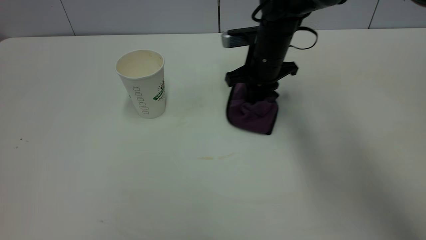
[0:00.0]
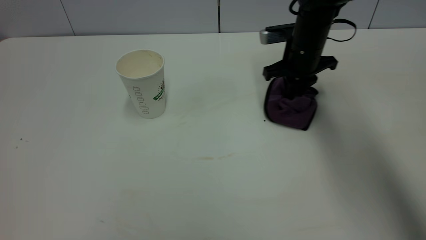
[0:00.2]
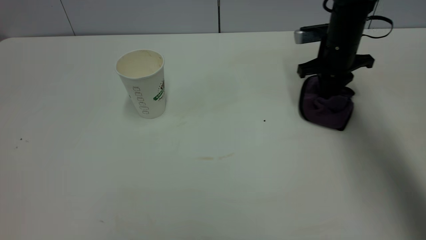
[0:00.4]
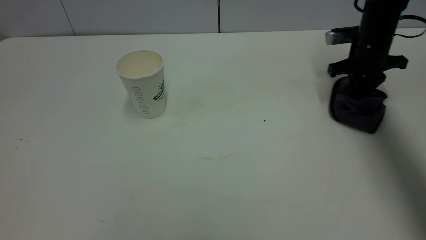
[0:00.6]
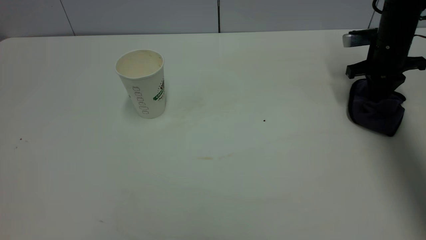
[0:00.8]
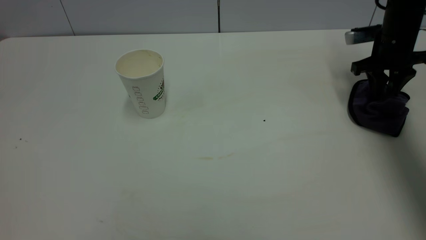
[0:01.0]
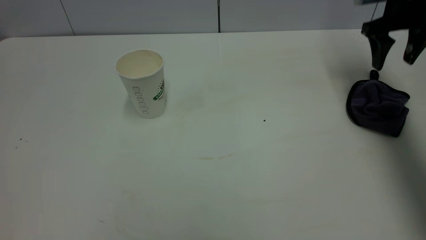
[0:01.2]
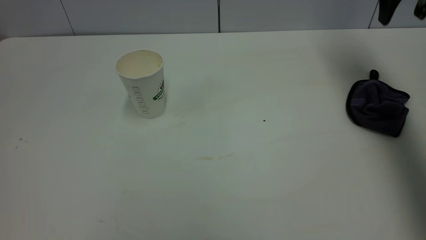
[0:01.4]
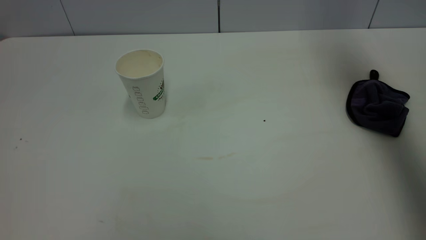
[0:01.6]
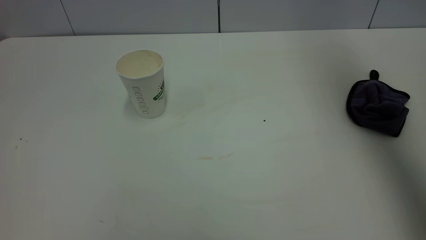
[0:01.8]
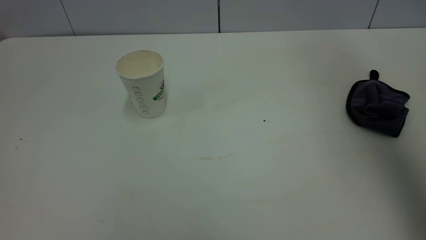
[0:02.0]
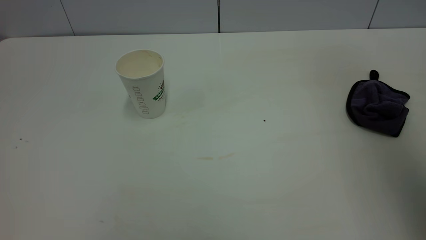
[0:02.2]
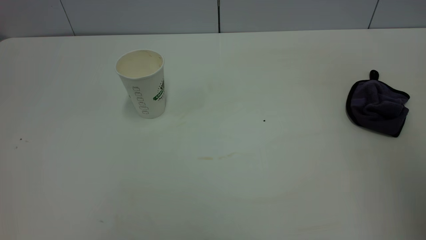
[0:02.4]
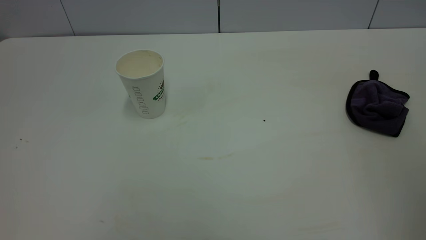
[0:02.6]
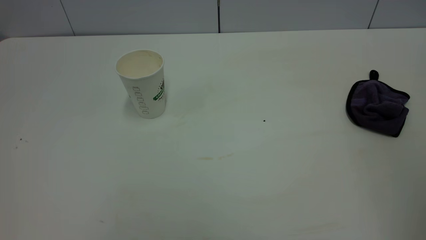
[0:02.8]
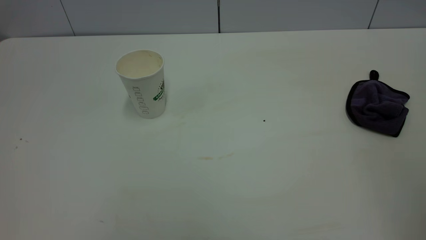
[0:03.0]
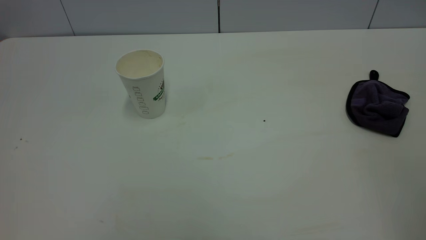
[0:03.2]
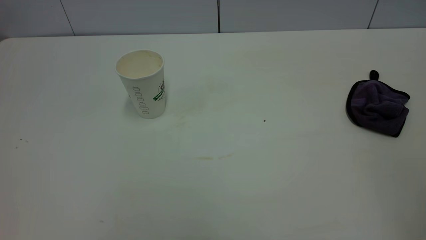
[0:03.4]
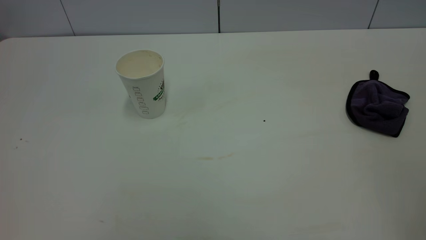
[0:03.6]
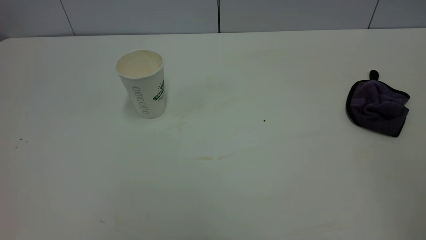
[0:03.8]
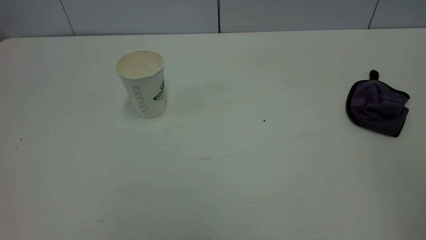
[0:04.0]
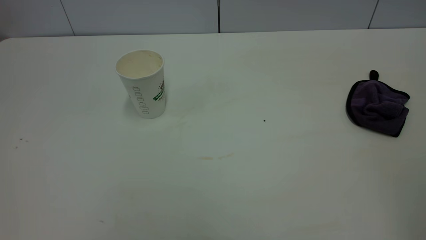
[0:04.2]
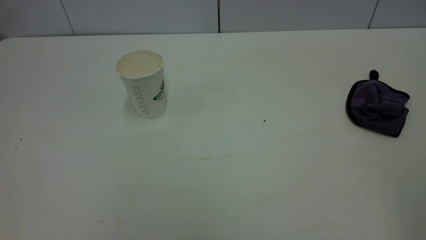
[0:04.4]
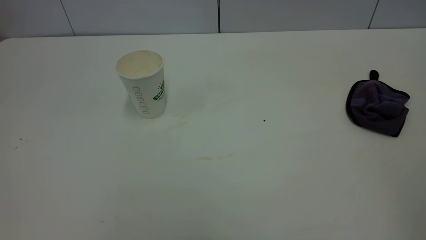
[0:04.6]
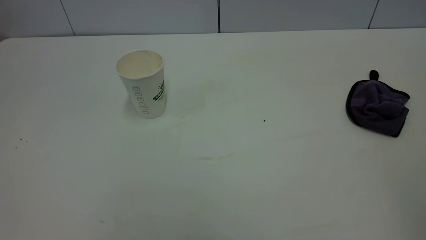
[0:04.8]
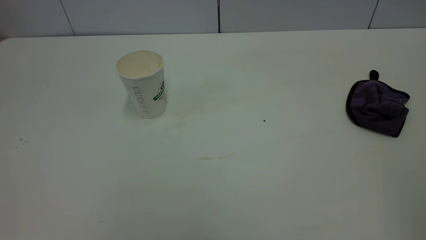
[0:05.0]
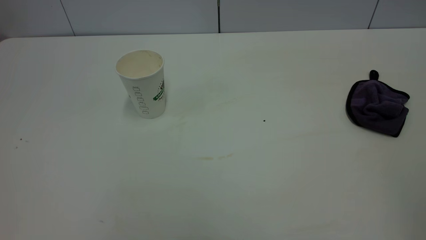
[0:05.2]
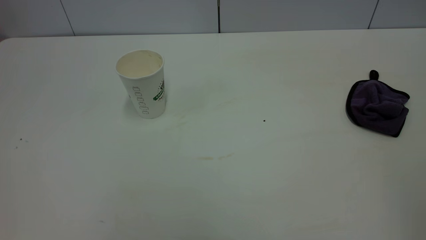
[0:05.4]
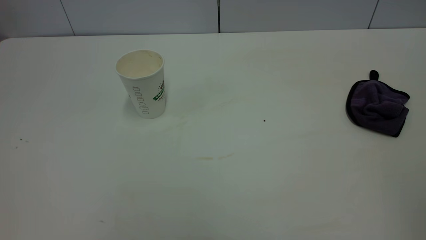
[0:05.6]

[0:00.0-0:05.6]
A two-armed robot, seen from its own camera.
Task of the whole recording: the left gripper pick up the fallen cup and place it upright, the right gripper grasp the purple rag and wipe the tea stain on the table, the right gripper put the purple rag back in its original position.
0:00.0 to 0:01.4: The right gripper heads to the right and upward, covering roughly 30 cm, and opens up.
0:01.4 to 0:02.8: The right gripper shifts approximately 40 cm backward.

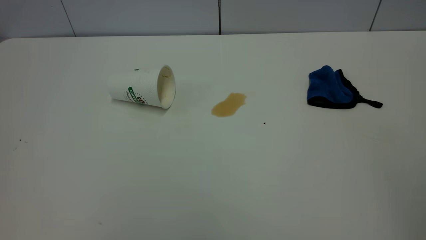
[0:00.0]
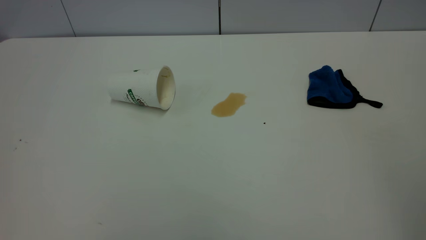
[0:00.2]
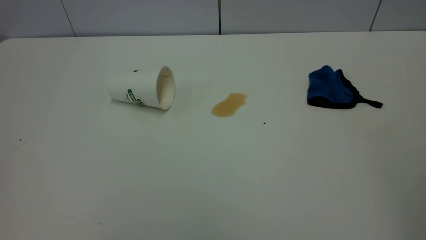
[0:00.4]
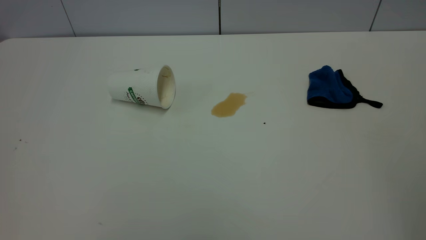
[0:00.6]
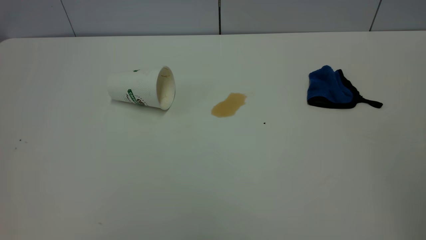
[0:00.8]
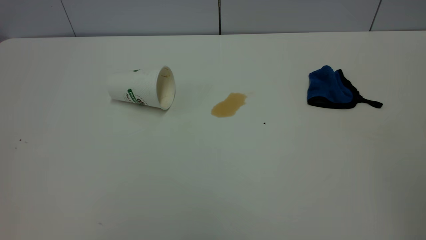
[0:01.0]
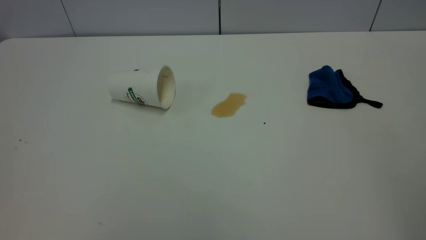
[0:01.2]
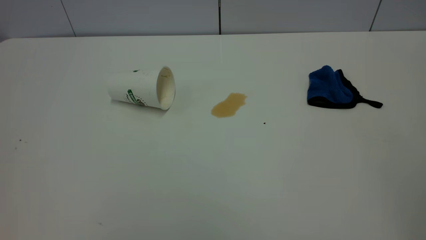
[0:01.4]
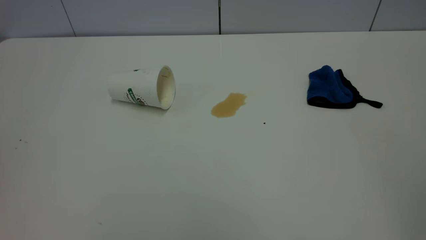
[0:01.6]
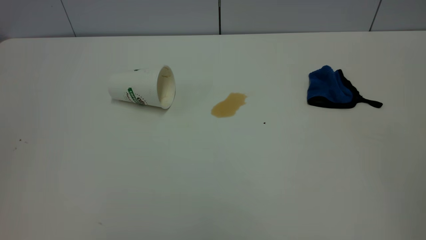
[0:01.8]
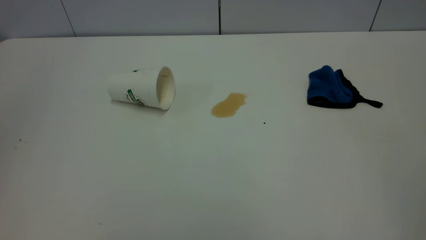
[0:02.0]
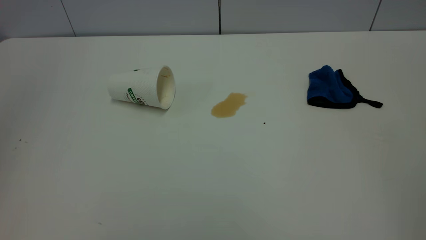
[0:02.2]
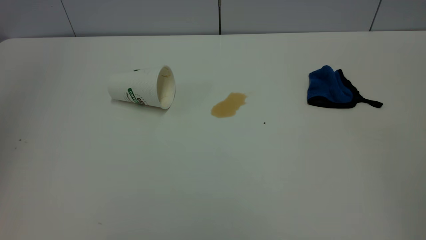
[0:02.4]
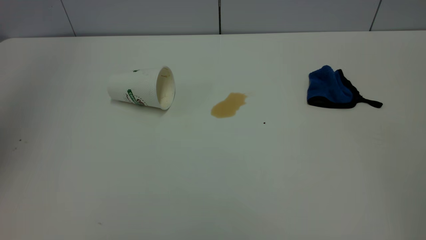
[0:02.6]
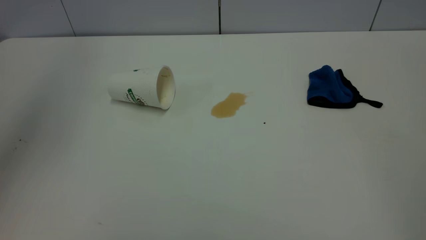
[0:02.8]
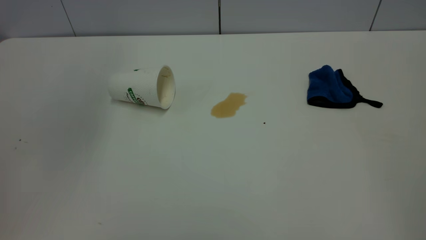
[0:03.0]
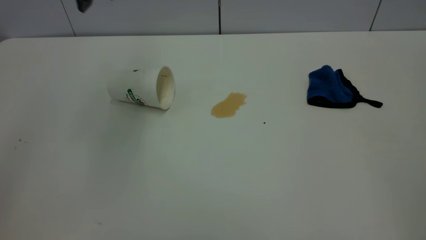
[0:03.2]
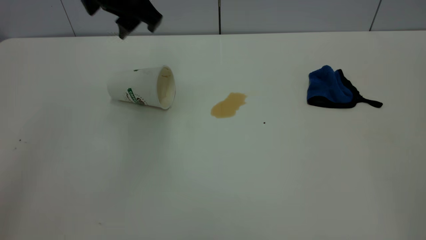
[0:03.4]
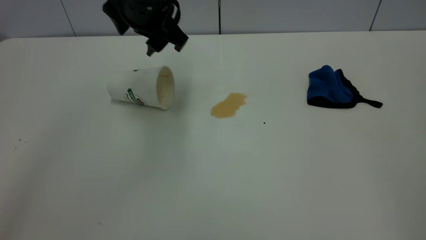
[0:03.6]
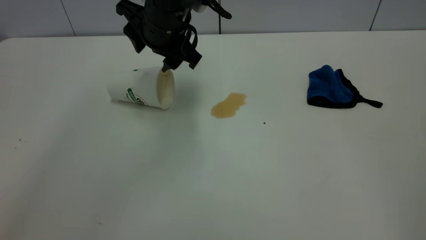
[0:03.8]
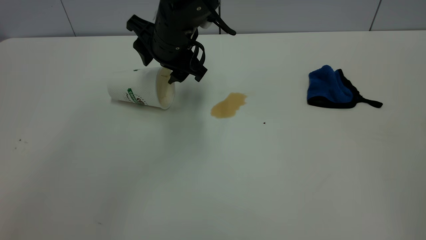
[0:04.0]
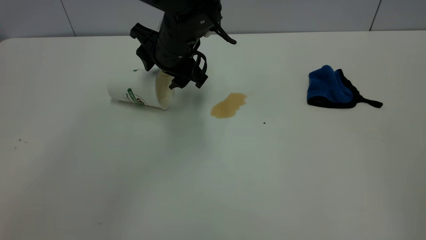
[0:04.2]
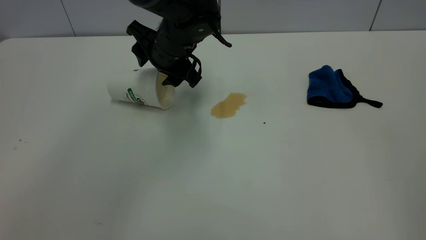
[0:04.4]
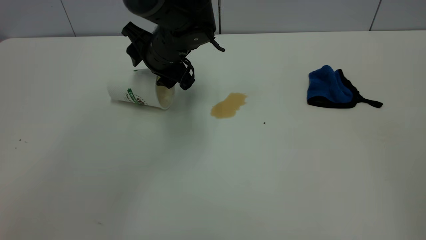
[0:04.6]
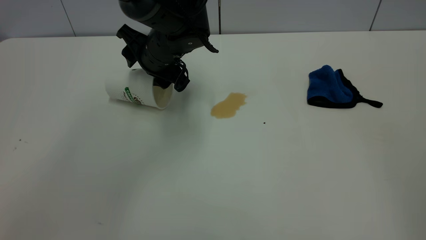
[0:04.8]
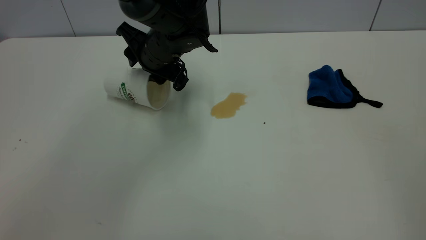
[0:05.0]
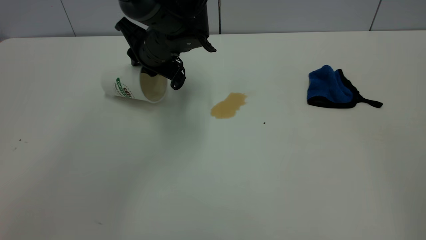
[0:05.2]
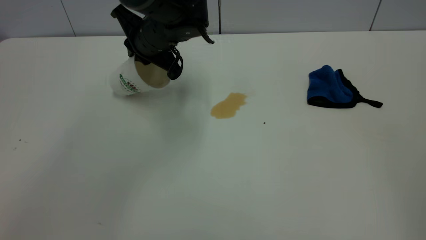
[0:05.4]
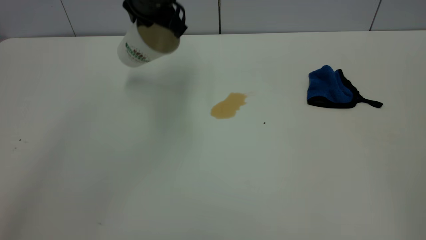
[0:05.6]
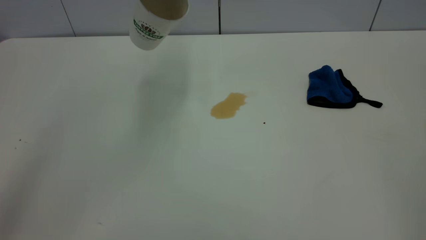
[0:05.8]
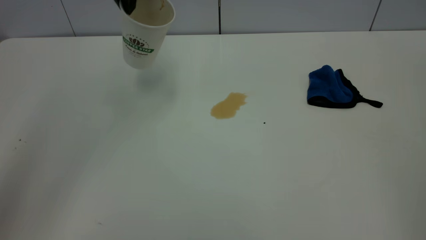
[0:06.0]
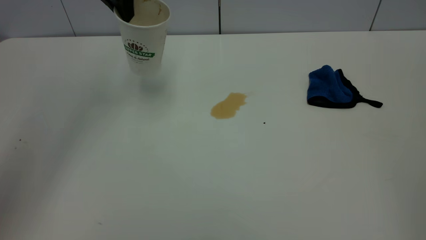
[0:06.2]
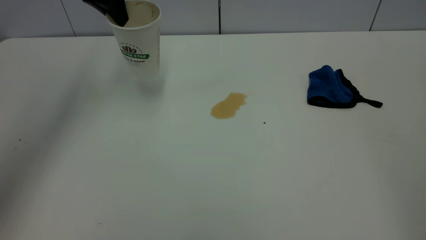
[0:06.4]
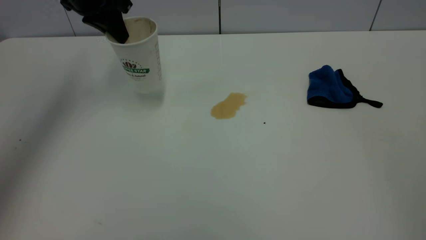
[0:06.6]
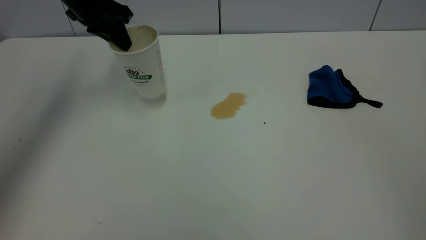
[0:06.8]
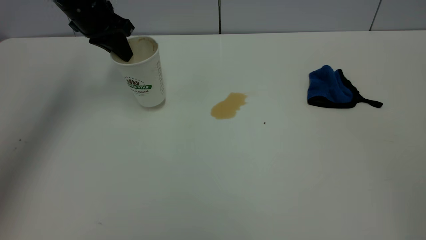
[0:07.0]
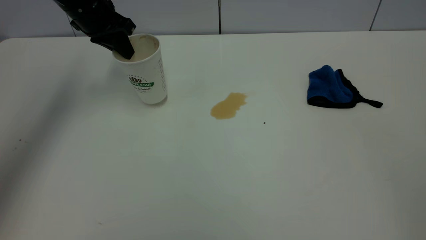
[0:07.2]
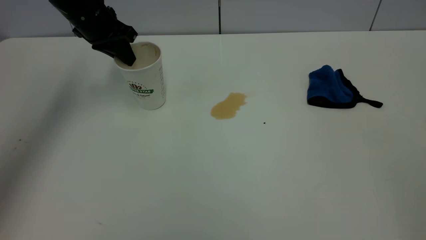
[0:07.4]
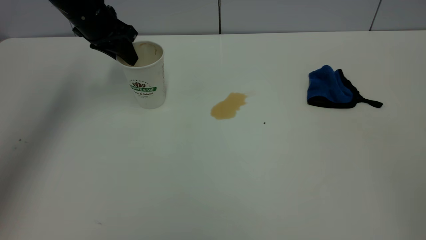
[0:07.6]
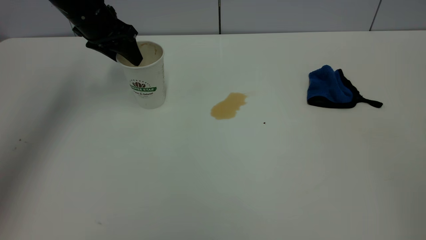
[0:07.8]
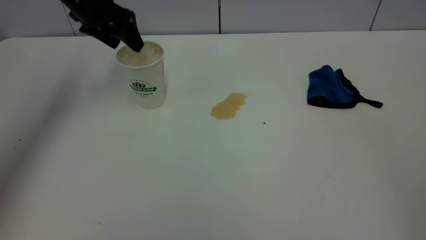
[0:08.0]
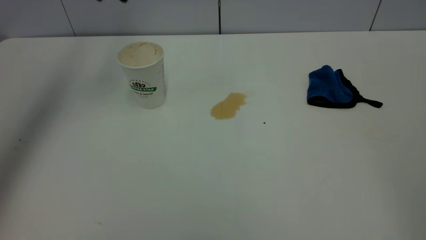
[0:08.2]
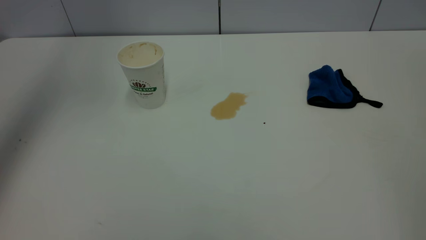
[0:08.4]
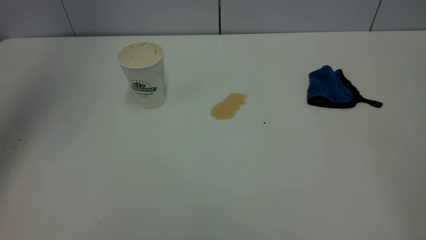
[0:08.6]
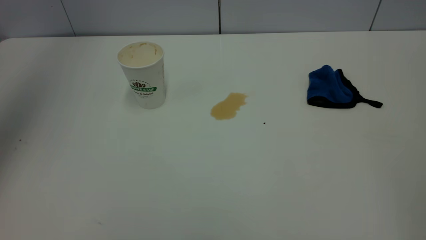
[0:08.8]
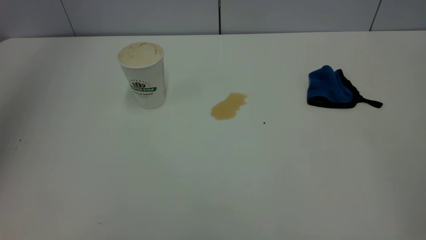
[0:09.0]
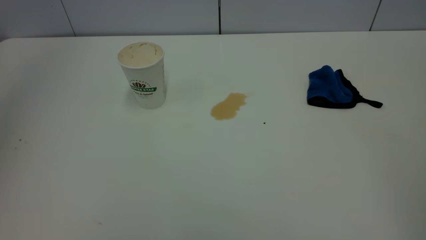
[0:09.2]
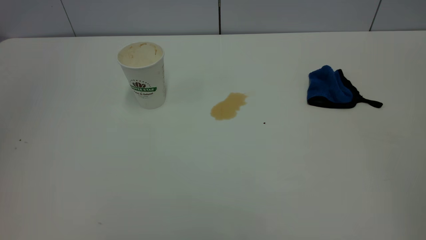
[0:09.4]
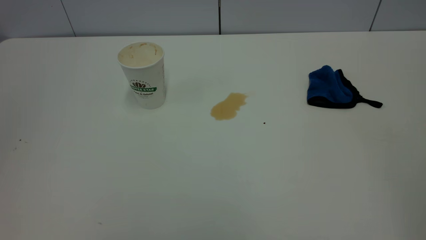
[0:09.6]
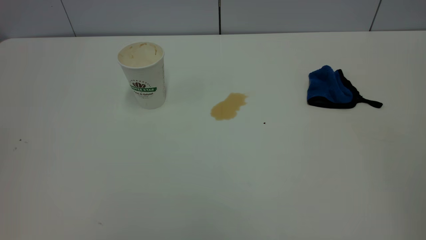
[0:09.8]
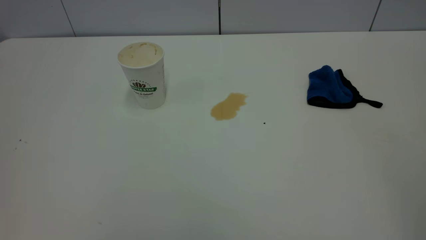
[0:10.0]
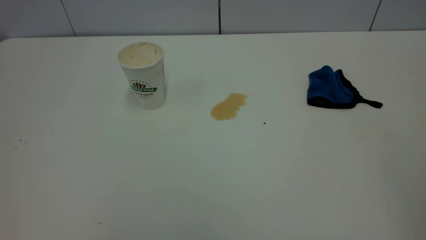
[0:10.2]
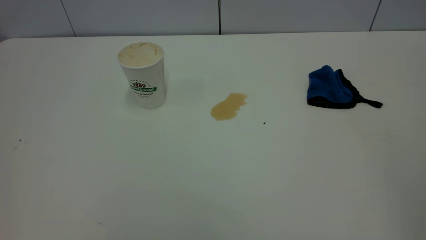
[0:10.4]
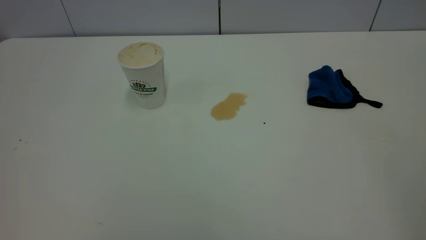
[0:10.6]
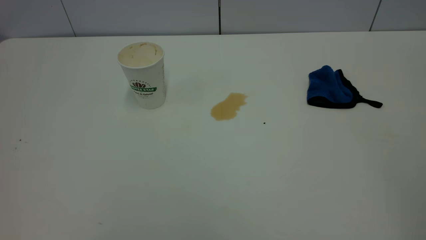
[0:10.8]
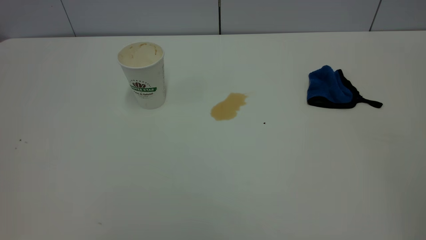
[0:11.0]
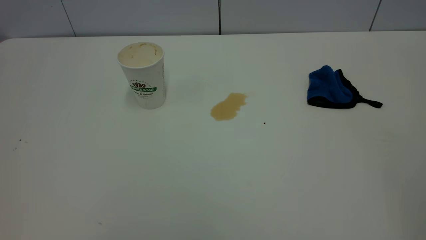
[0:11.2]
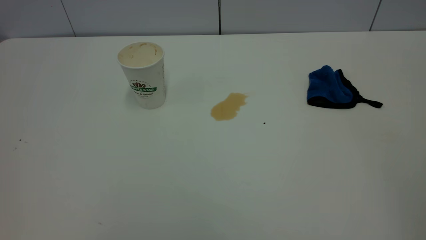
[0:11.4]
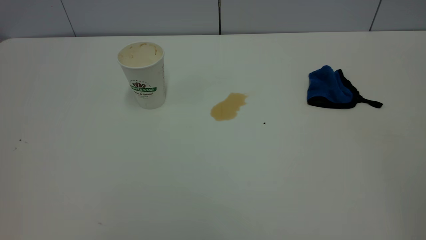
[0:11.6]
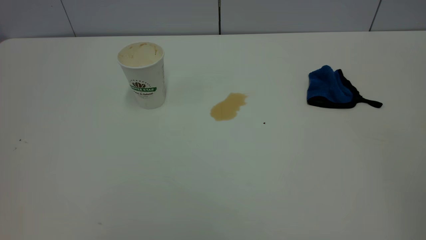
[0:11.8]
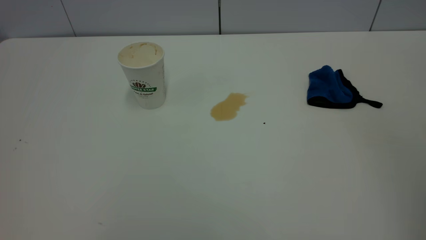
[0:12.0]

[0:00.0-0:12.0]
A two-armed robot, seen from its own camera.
Task of the whole recording: the left gripper pick up the fallen cup and place it upright, the right gripper grasp the blue rag and wipe the tea stain on the table, the right gripper put the blue rag back in its original position.
Step, 0:00.0 to 0:08.0: Stand the paper cup upright.
0:01.6 to 0:03.0: The left gripper travels forward by roughly 35 cm, and opens its fingers.
0:03.0 to 0:04.4: The left gripper moves downward and to the right, roughly 25 cm.
0:04.4 to 0:06.0: The left gripper travels upward and to the left by some 15 cm, and closes up.
0:06.0 to 0:07.6: The left gripper moves downward and to the left, approximately 15 cm, and opens.
0:07.6 to 0:09.0: The left gripper shifts some 40 cm upward and backward, and opens up.
0:09.0 to 0:10.4: The left gripper heads backward and downward, covering approximately 35 cm.
